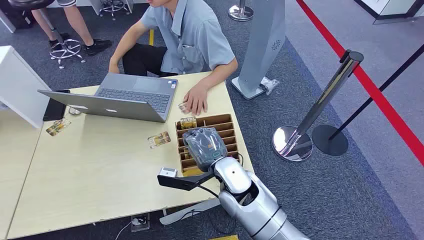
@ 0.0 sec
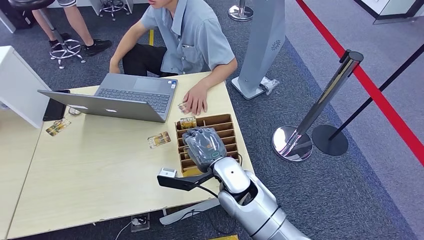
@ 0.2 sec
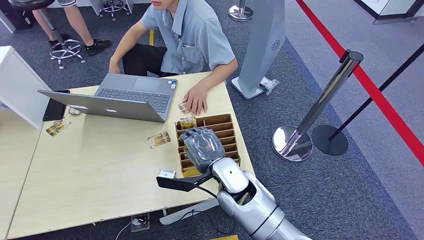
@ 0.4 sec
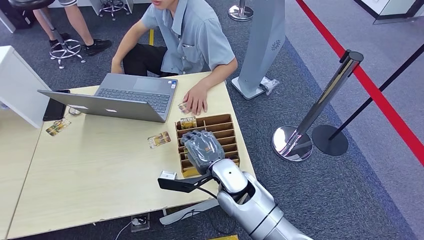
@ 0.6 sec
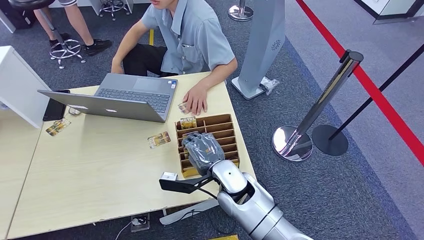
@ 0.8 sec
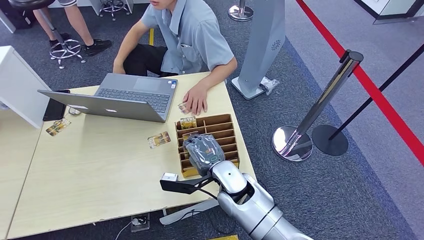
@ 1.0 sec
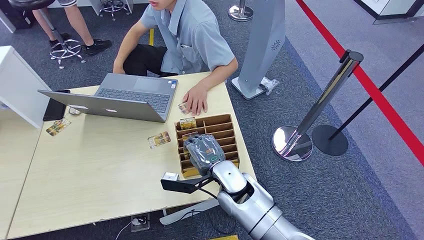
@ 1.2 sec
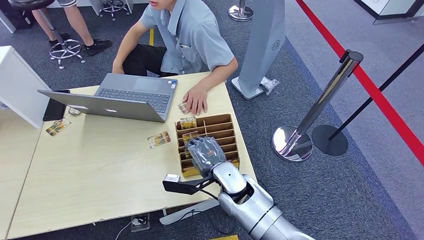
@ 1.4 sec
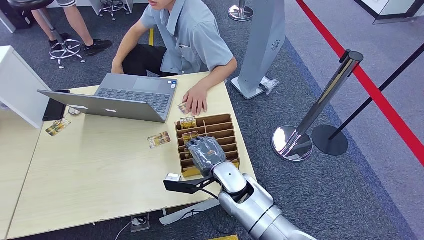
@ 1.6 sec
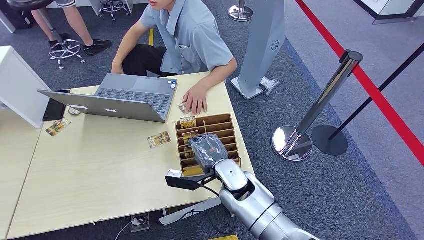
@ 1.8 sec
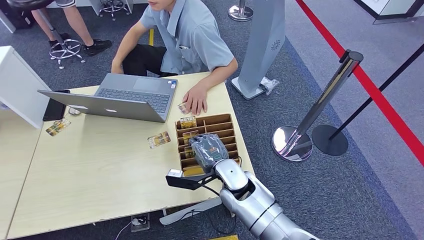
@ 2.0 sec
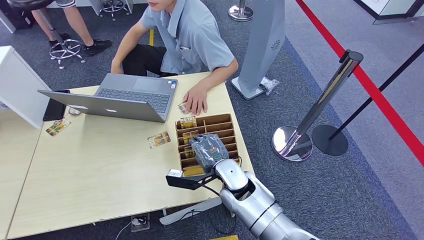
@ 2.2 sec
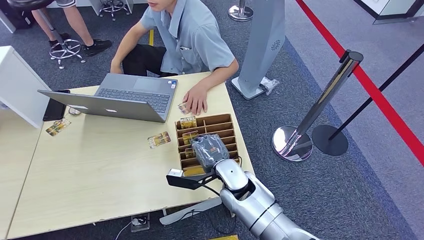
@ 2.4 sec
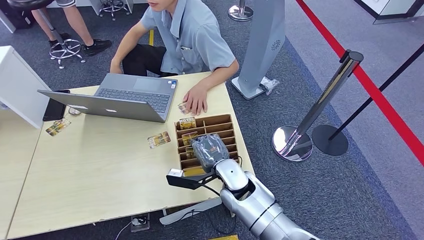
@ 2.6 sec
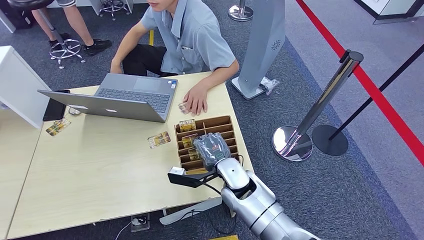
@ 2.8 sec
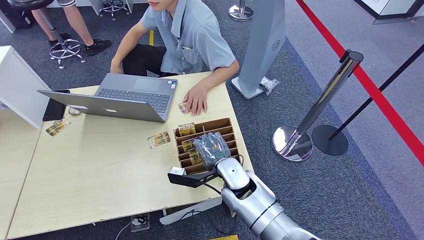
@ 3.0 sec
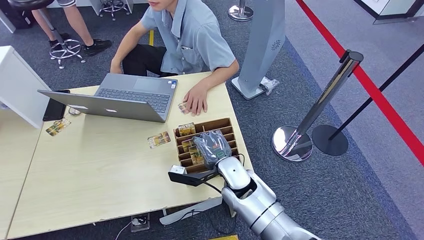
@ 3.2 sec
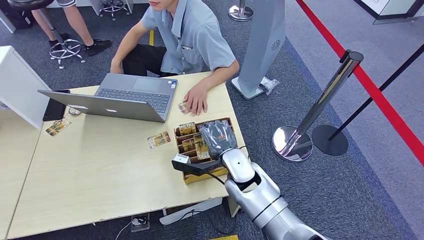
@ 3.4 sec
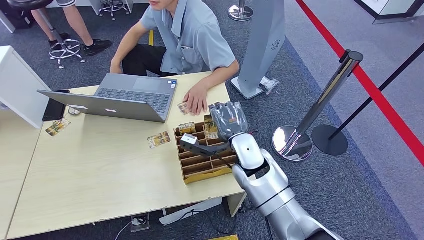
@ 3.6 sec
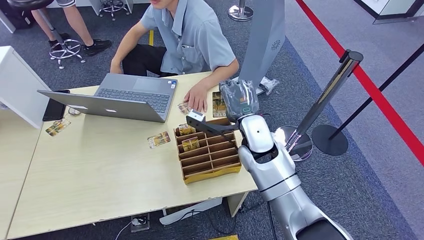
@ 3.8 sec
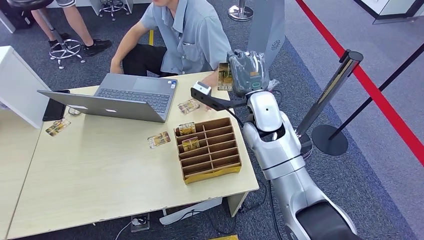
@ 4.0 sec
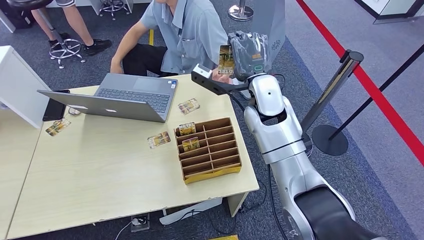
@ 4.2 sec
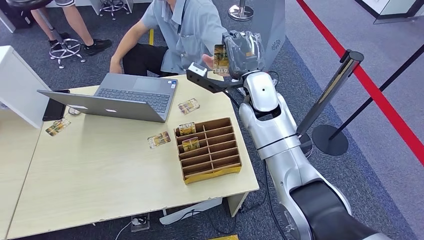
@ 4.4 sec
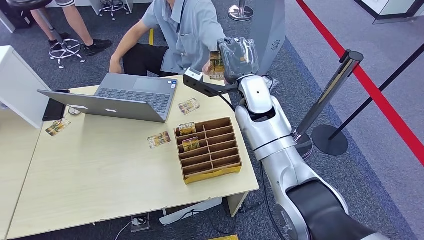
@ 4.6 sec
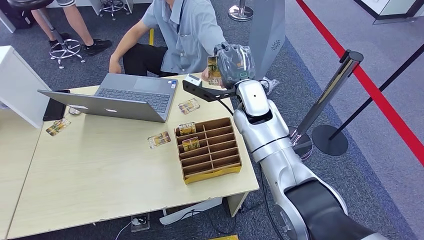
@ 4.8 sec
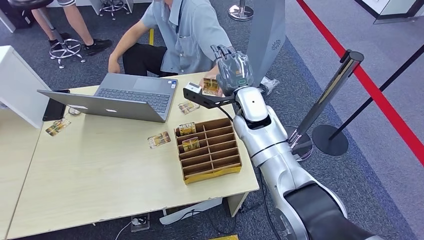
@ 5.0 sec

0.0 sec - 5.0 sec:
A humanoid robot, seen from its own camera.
Step, 0.0 sec - 2.6 sec: Pick up the room card from the card holder.
Step, 4.2 sec - 5.0 sec: Hand the room card to the target.
1.6 sec - 3.4 sec: The right hand heads upward and to the right, covering about 10 cm.
3.4 sec - 5.0 sec: The right hand goes about 5 cm forward.
